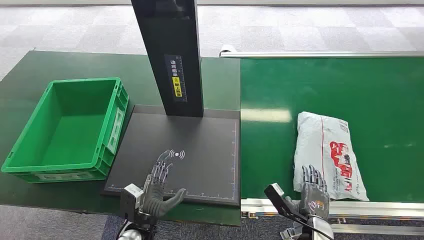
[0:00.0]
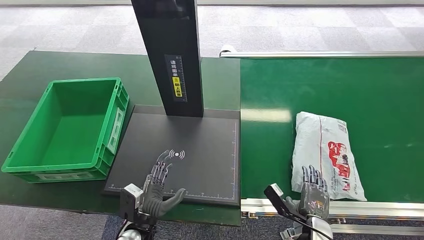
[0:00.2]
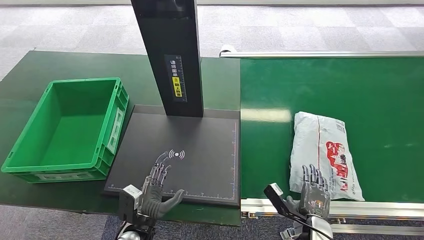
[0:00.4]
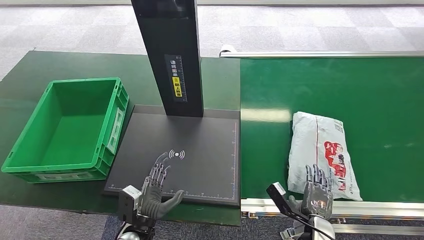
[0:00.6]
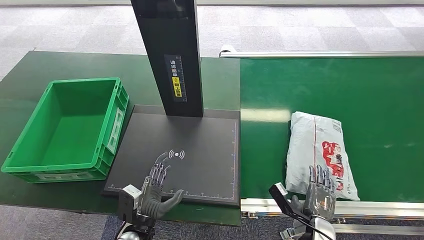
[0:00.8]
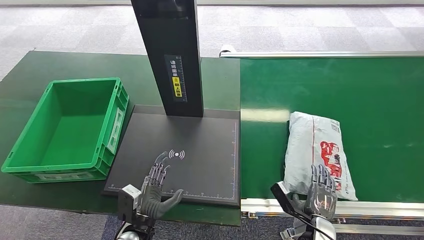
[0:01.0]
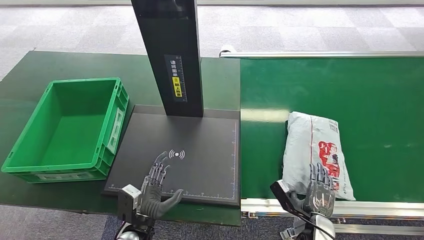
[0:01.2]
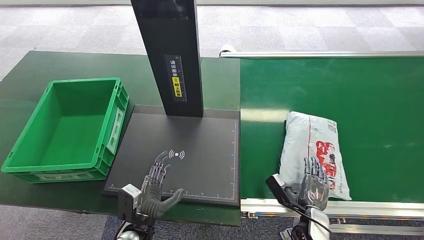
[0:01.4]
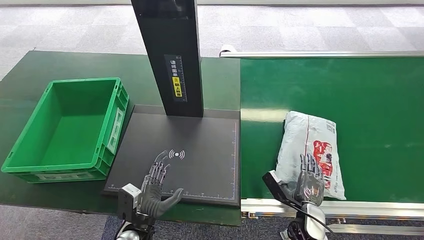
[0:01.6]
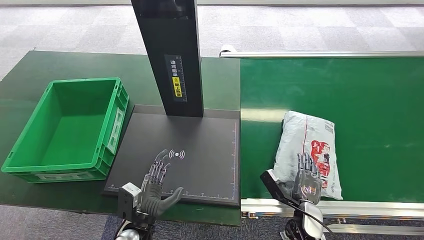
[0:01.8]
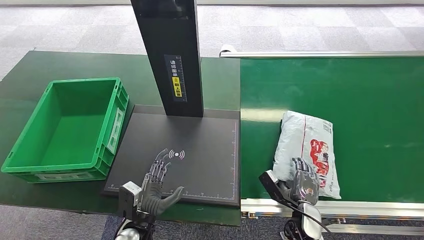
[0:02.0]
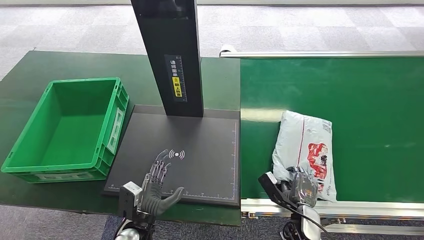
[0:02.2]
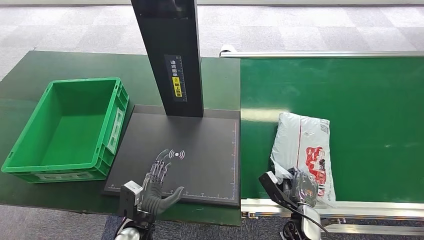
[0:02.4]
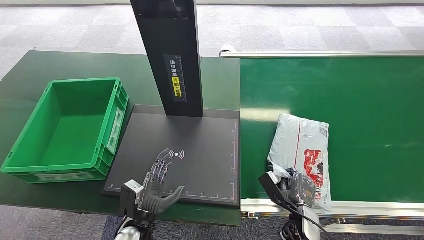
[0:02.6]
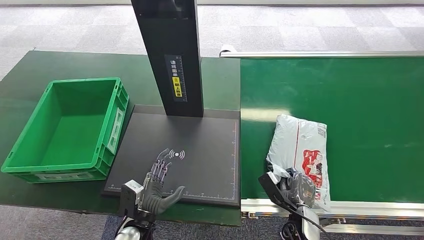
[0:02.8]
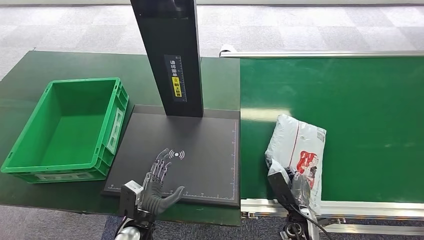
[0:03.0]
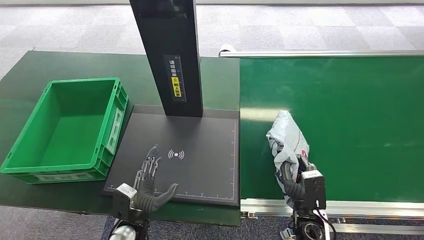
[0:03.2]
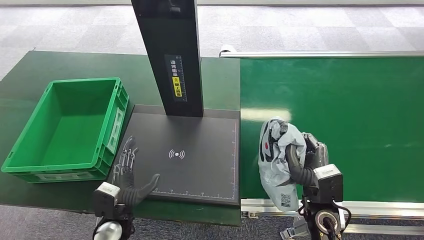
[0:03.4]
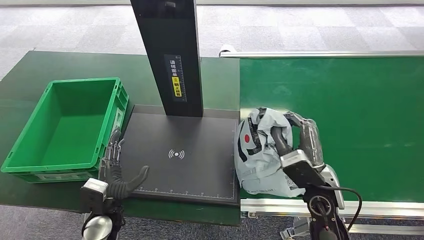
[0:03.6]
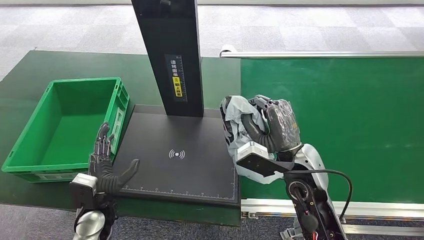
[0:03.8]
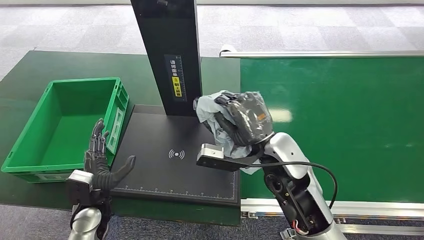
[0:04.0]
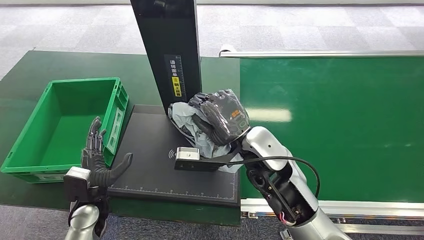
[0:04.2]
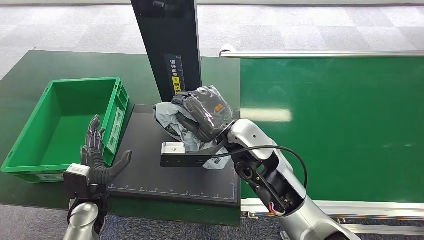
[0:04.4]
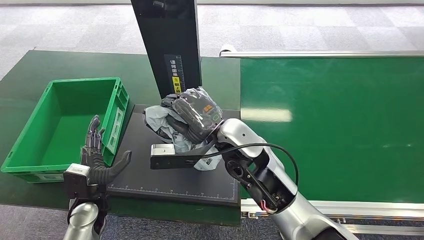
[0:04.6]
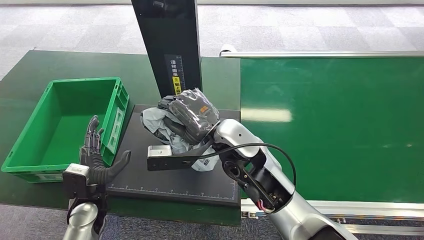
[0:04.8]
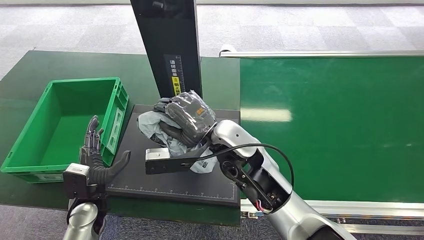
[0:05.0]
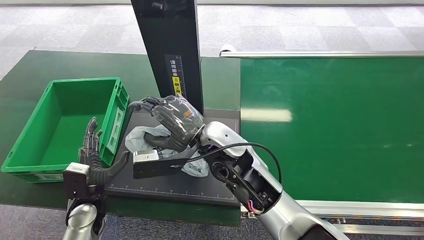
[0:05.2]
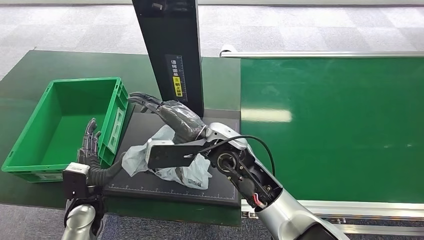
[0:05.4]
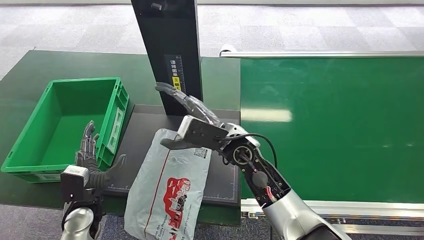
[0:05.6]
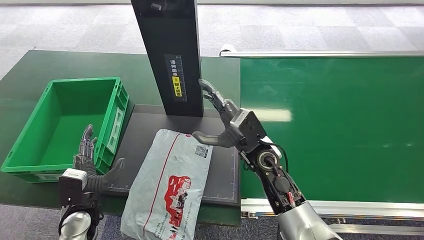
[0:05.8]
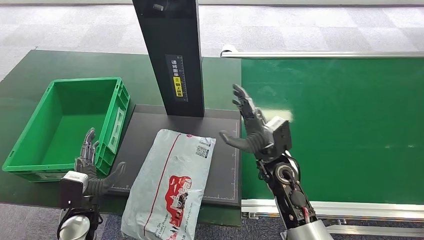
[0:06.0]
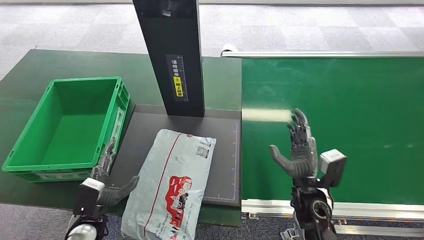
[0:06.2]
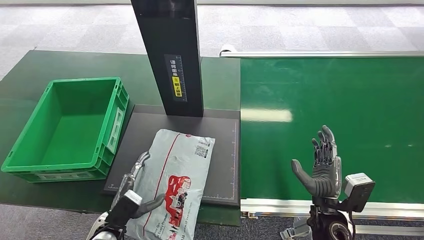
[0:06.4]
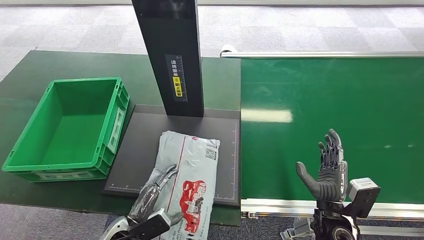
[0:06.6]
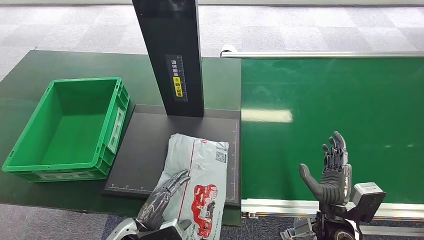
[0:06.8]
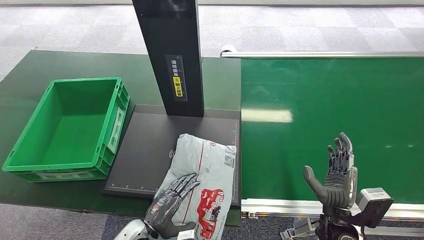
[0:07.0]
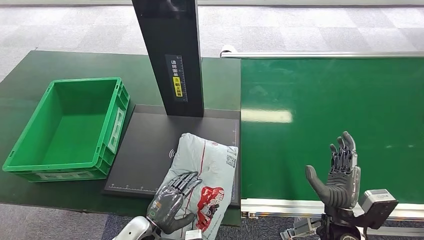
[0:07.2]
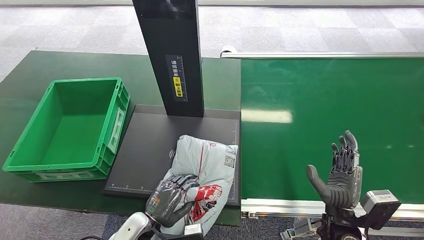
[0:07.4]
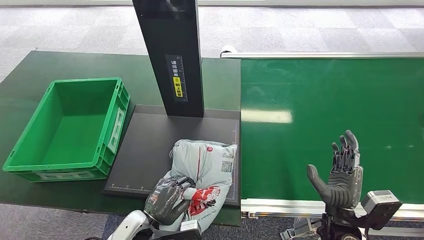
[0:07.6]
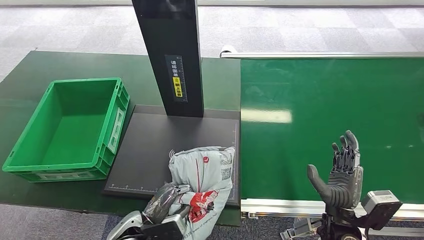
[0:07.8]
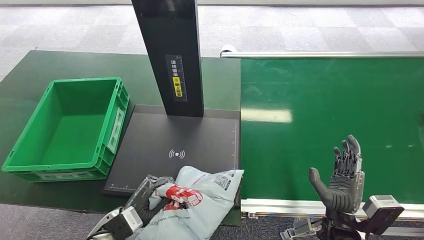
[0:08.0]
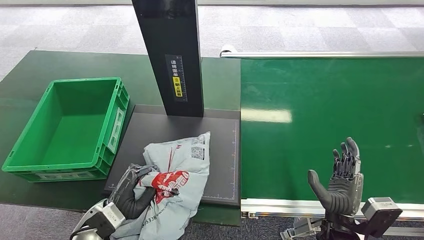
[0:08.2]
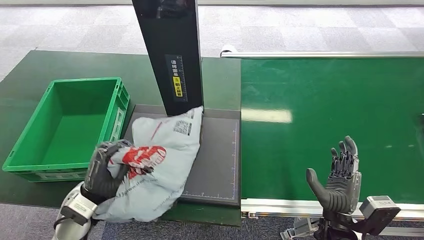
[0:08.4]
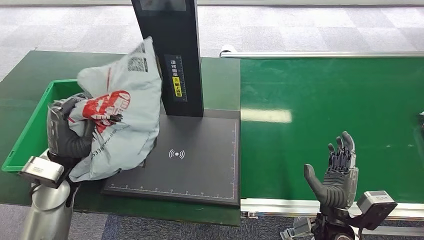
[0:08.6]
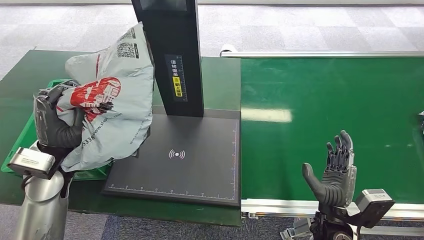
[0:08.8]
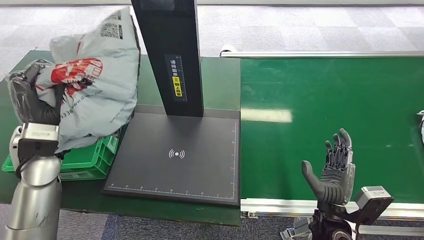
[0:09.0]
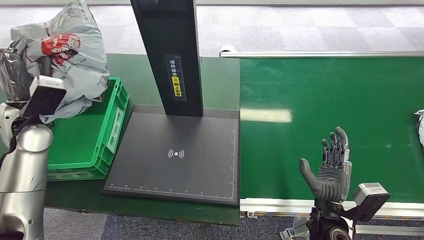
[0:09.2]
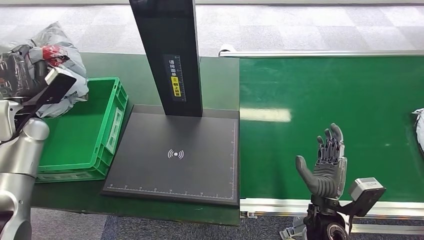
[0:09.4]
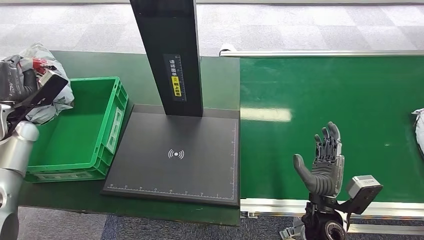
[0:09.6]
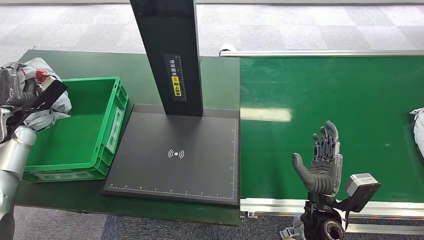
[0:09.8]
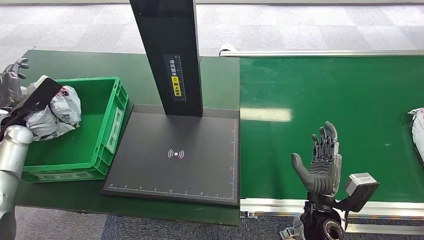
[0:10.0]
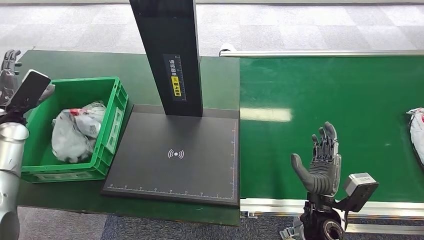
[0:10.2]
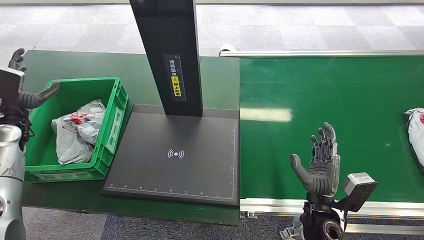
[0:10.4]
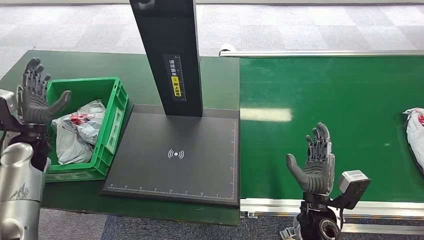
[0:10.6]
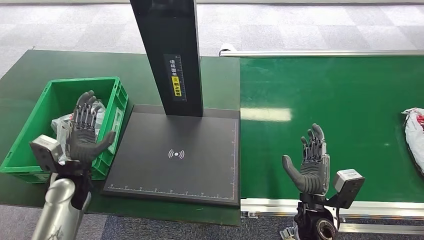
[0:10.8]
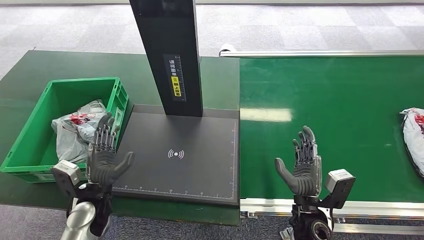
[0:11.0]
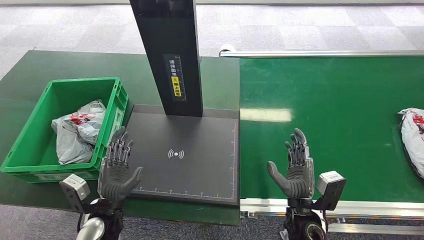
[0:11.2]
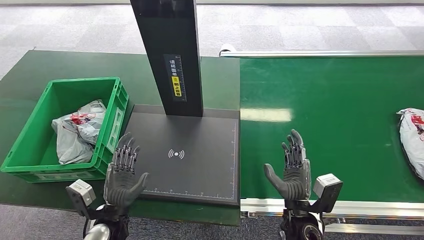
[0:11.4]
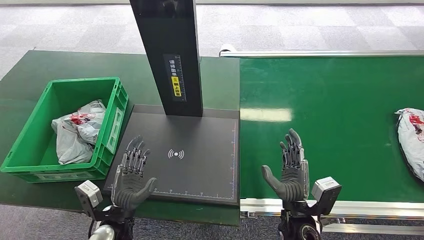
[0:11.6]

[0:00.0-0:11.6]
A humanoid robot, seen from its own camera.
Step, 0:00.0 to 0:03.4: Pick up the package from the conveyor belt.
Step, 0:03.6 to 0:05.8: Place the package onto the inbound machine.
Step, 0:06.2 to 0:08.6: Pick up the package from the inbound machine.
Step, 0:09.0 to 0:11.6: Place the package into the parcel locker.
0:01.4 to 0:02.8: The hands stay close to where they were, moving slightly.
0:02.8 to 0:04.4: The right hand goes roughly 35 cm upward, to the left and forward. The left hand is displaced to the left and upward by roughly 15 cm.
0:04.4 to 0:05.8: The right hand moves downward, about 10 cm.
0:10.2 to 0:11.6: The right hand ends up roughly 5 cm from where it was. The left hand goes some 40 cm to the right, backward and downward.
